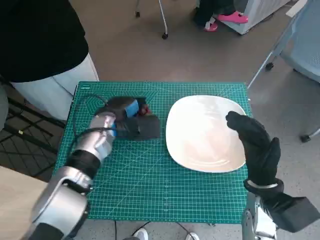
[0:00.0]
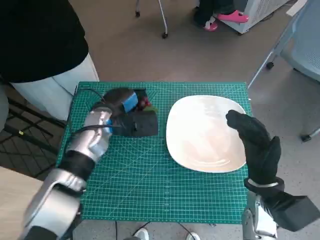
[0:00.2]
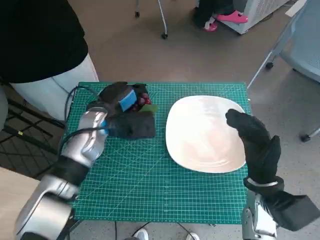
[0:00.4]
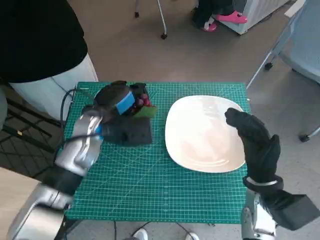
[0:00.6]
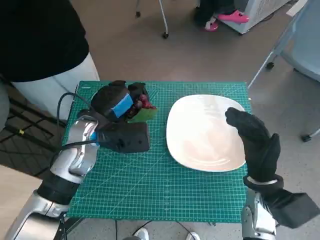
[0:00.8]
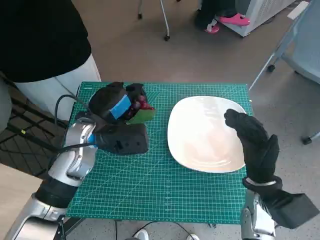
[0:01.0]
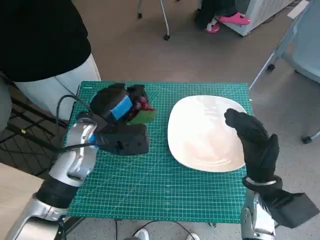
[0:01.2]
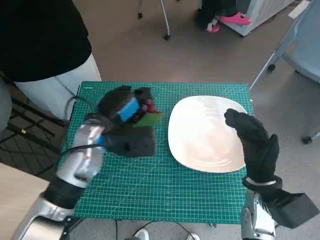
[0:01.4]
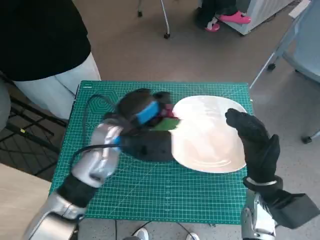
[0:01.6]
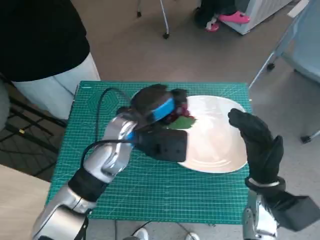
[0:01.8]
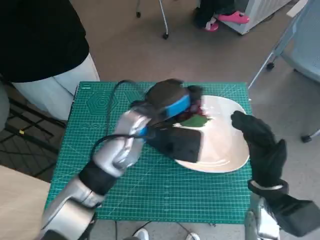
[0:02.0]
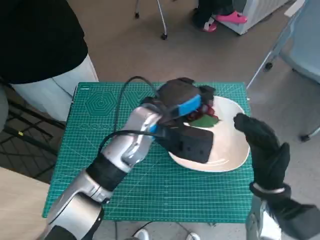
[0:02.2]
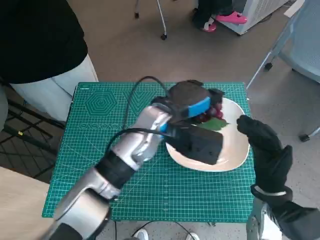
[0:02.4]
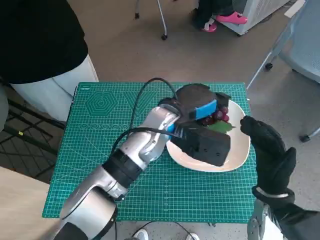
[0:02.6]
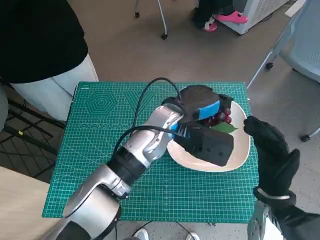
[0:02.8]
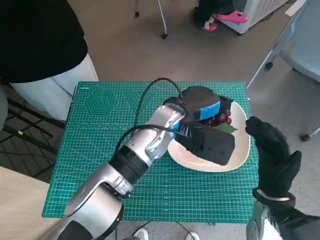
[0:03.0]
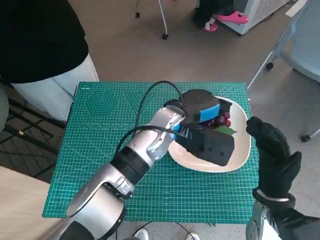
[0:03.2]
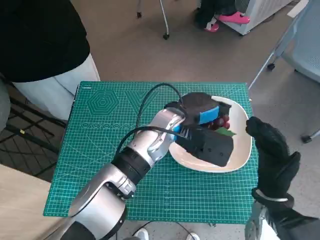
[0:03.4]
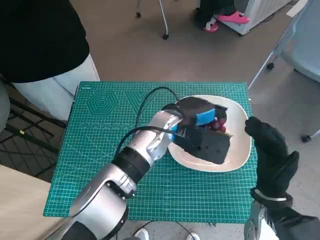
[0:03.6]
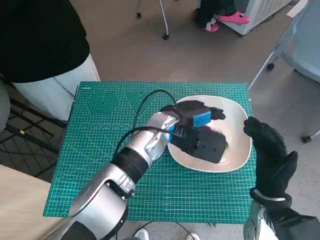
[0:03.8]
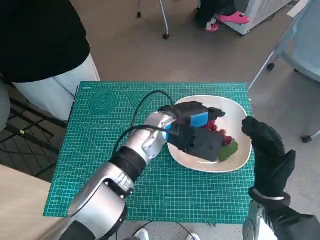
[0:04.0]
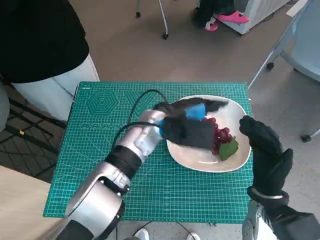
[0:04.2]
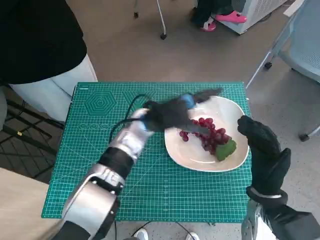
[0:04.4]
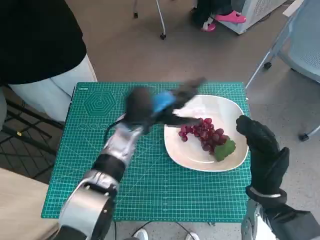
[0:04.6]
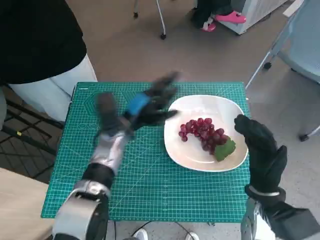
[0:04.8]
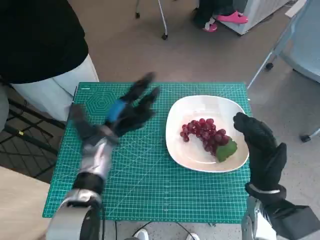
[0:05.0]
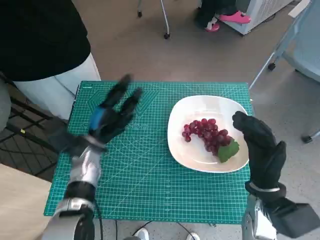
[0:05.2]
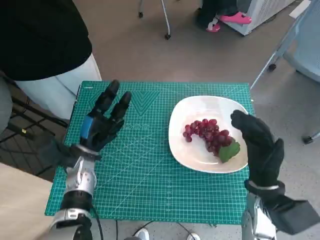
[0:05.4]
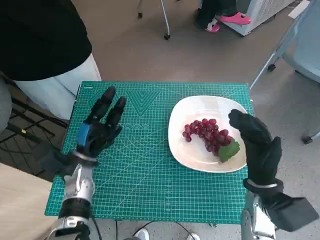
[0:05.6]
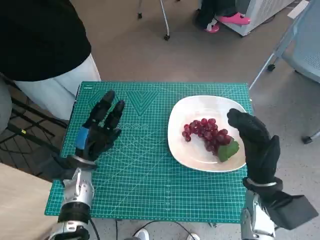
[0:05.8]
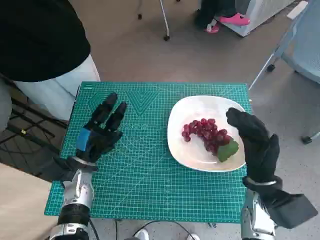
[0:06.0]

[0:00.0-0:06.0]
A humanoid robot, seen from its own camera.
Task of the whole recording: Pick up the grapes and put them on the plate.
Step, 0:00.0 to 0:04.0: Place the grapes in the plate with left hand.
0:00.0 to 0:01.6: The left hand changes place by roughly 5 cm.
0:01.6 to 0:03.0: The left hand is displaced to the right by approximately 10 cm.
0:03.0 to 0:04.4: The left hand ends up about 5 cm from where it was.
0:04.4 to 0:06.0: The left hand moves to the left, downward and backward, about 20 cm.

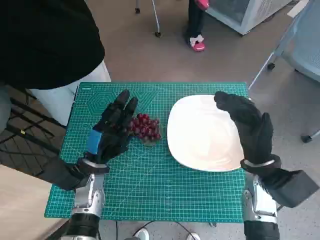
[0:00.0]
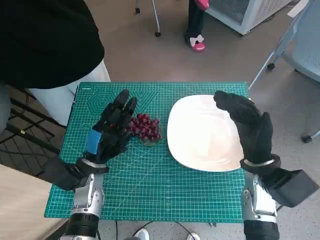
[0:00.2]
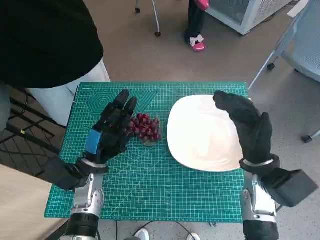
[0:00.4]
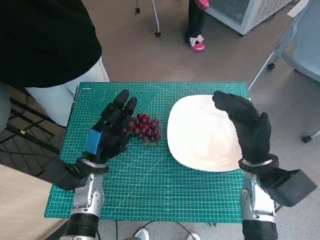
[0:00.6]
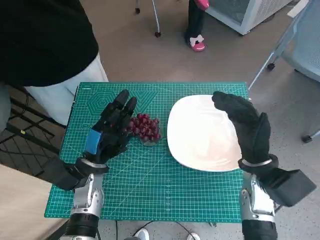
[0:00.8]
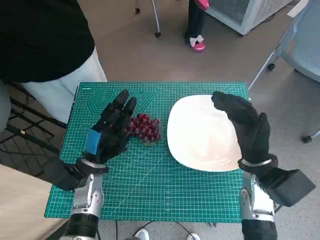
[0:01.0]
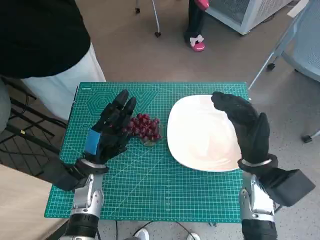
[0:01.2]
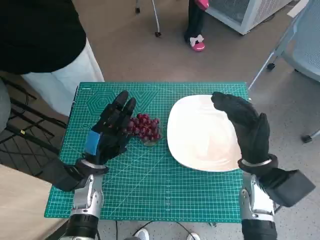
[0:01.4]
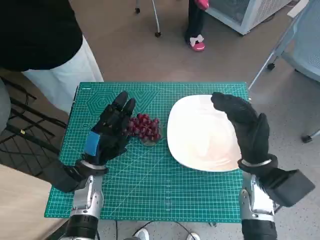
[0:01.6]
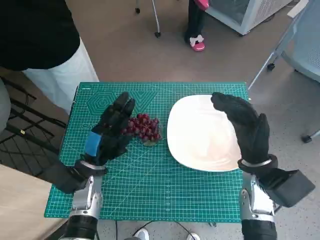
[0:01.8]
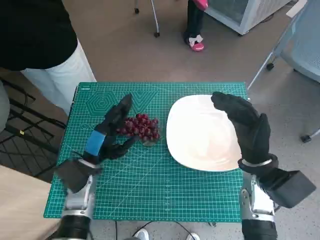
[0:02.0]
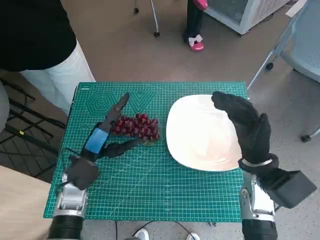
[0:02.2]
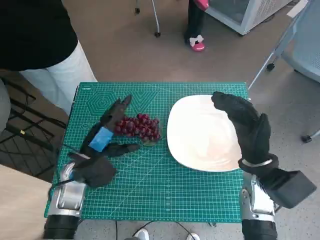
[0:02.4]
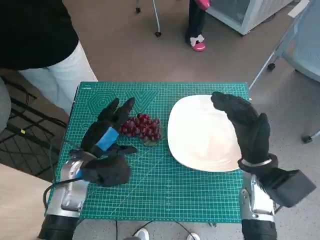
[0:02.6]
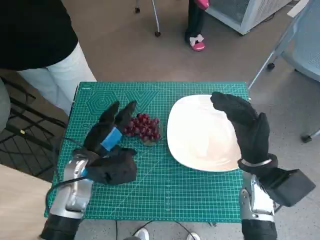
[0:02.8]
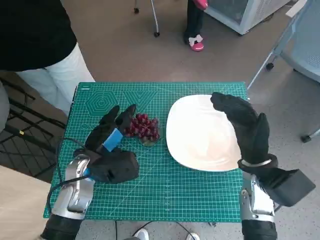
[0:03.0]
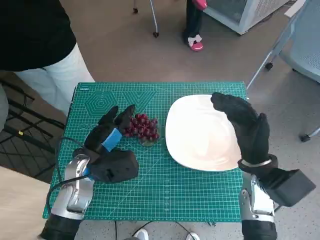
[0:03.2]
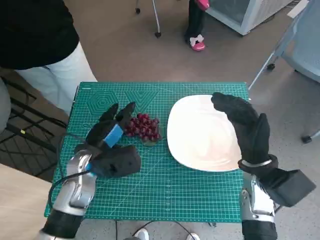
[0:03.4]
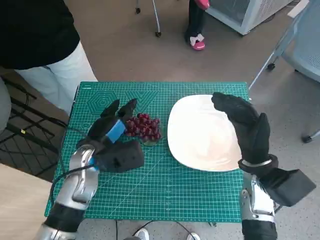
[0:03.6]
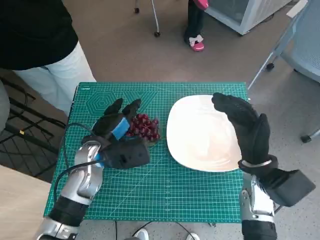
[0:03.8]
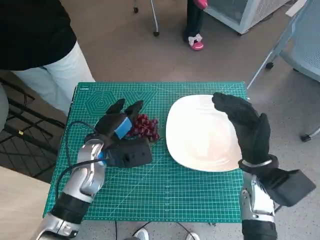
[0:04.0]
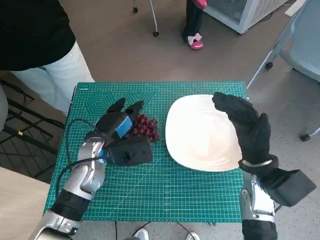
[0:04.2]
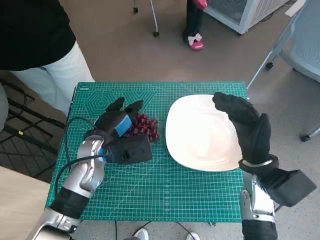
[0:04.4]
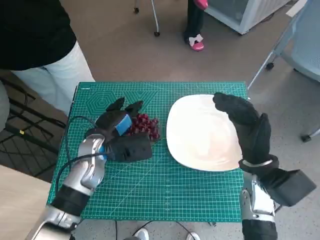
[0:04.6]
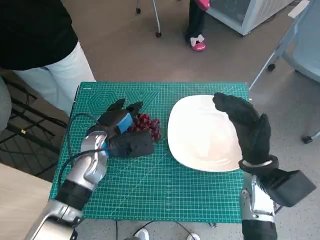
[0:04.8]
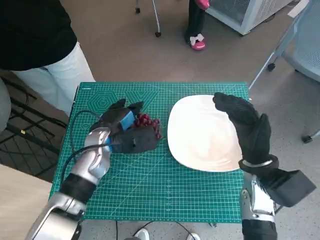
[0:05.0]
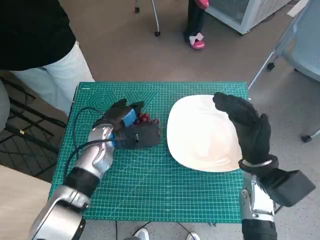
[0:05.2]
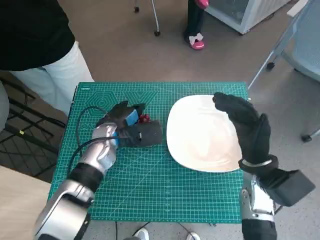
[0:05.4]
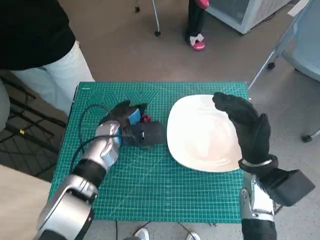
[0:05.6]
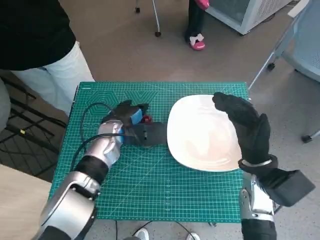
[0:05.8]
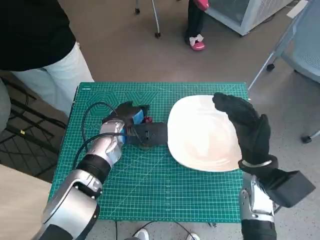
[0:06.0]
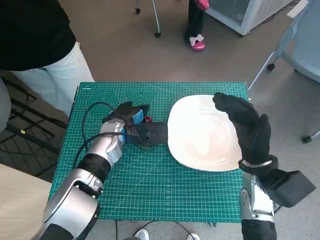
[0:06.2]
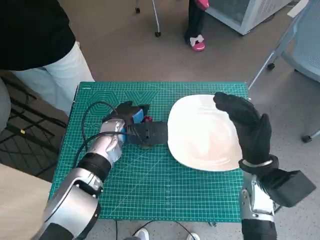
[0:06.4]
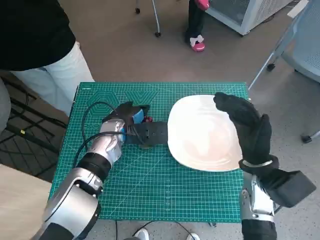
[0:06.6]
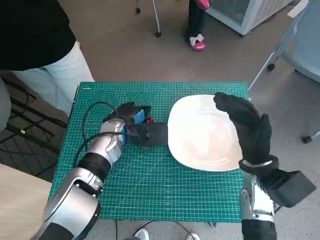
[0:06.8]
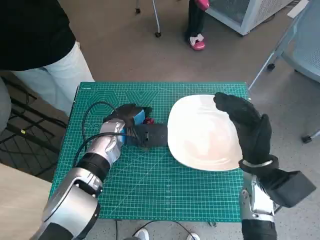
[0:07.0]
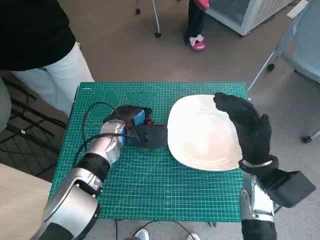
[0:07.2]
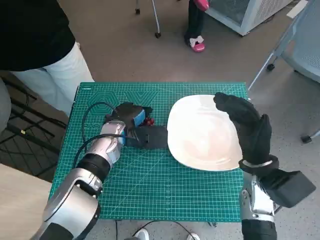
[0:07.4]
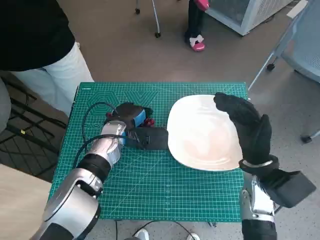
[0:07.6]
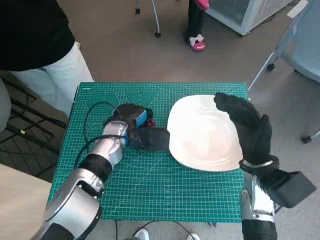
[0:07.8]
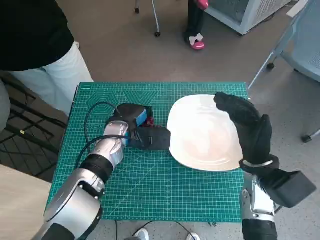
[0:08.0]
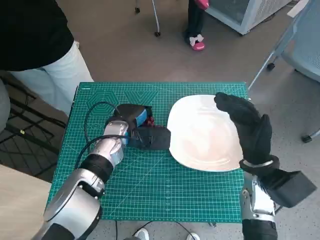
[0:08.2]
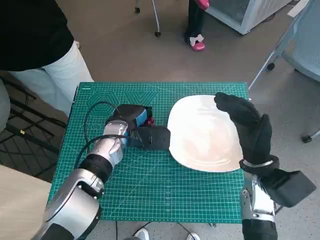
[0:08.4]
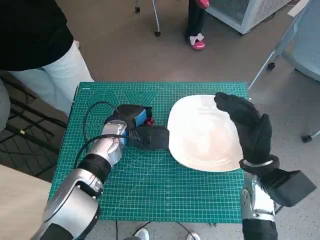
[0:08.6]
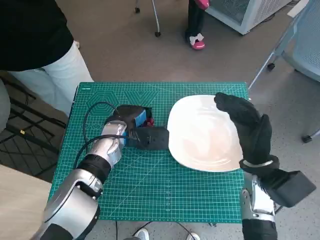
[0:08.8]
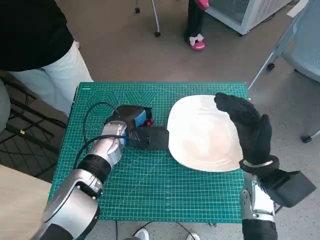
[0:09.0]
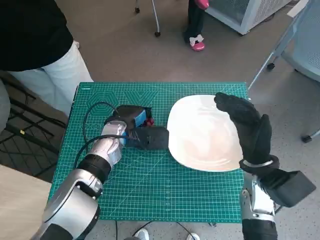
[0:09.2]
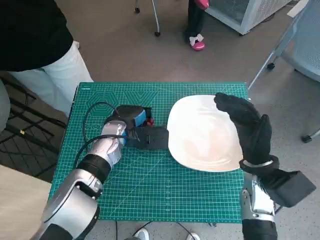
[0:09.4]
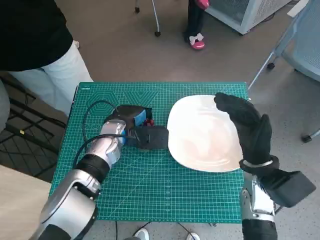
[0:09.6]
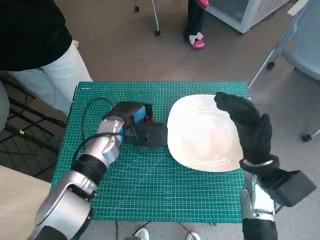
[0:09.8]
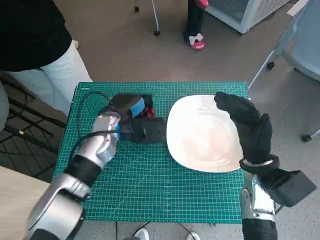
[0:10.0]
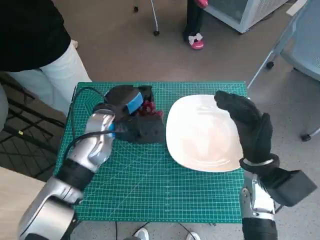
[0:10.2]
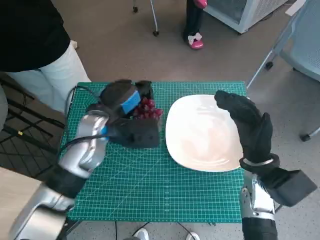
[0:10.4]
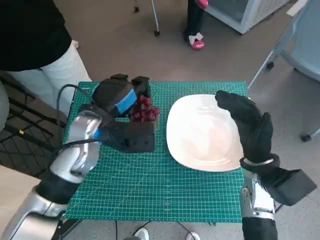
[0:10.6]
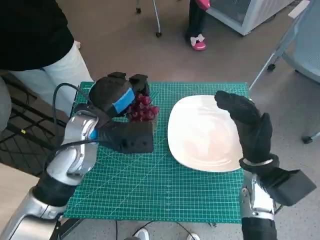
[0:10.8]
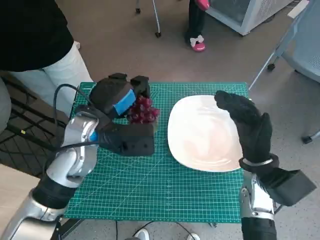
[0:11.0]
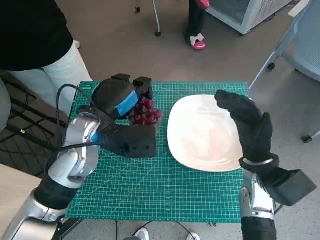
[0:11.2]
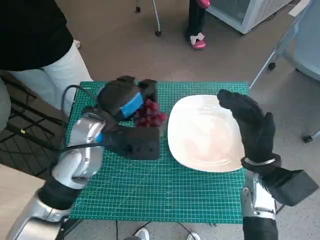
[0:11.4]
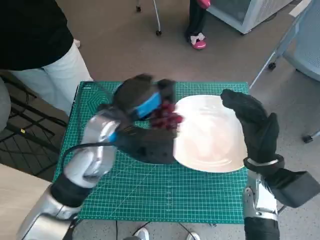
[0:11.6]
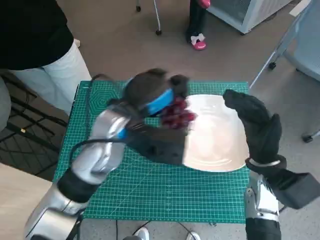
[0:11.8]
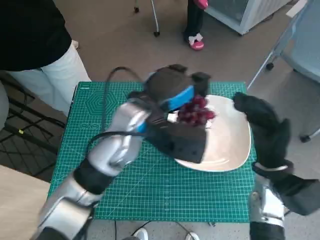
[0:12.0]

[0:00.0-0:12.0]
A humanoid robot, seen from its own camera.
Task of the whole recording: Pick up the grapes and put them on the plate.
Step, 0:00.0 to 0:07.8: Grasp the grapes with left hand.
0:03.0 to 0:04.4: There are only small adjustments of the hands.
0:04.4 to 0:06.0: The left hand heads forward, covering some 5 cm.
0:06.0 to 0:07.6: There are only small adjustments of the hands.
0:07.6 to 0:09.0: Neither hand changes place.
0:09.0 to 0:10.4: The left hand moves upward, some 5 cm.
0:10.4 to 0:12.0: The left hand moves to the right and upward, roughly 10 cm.

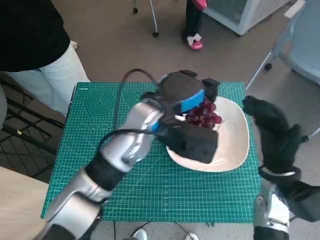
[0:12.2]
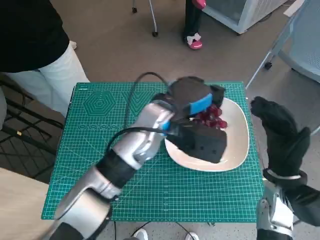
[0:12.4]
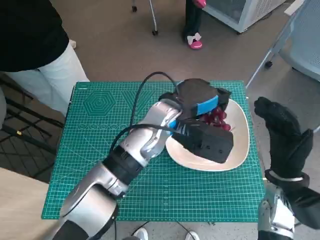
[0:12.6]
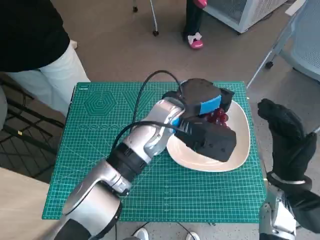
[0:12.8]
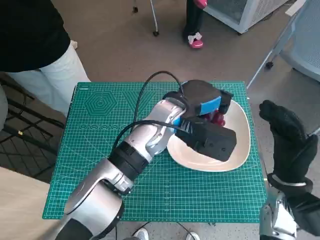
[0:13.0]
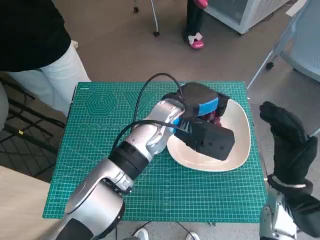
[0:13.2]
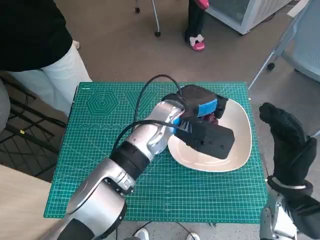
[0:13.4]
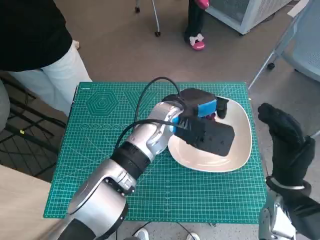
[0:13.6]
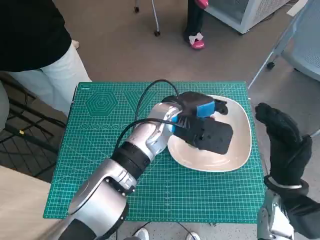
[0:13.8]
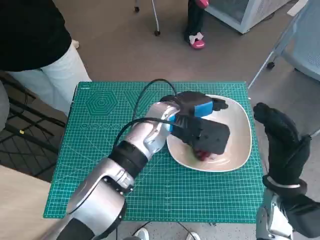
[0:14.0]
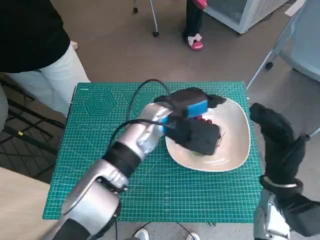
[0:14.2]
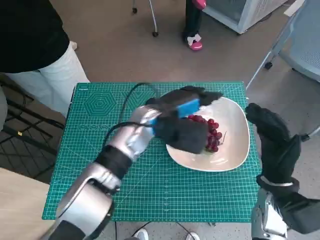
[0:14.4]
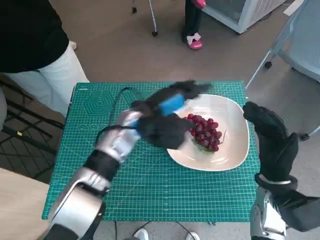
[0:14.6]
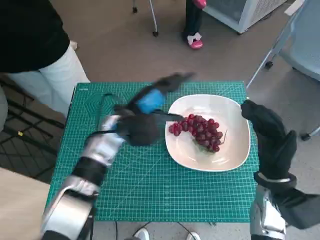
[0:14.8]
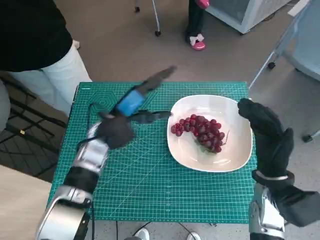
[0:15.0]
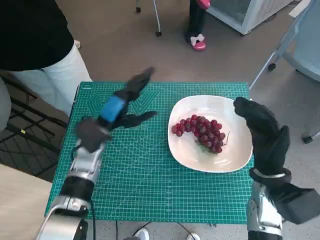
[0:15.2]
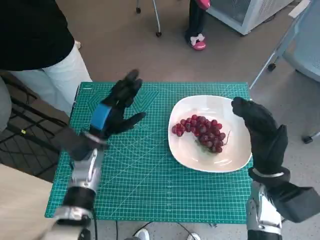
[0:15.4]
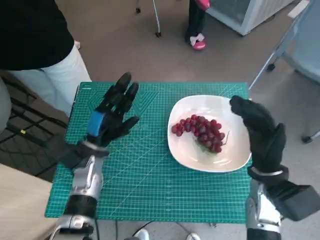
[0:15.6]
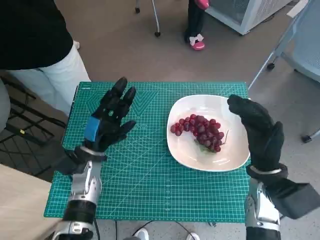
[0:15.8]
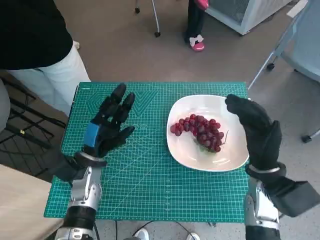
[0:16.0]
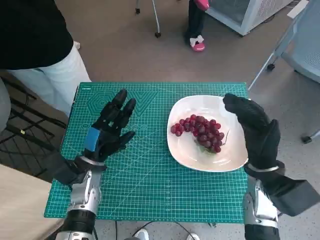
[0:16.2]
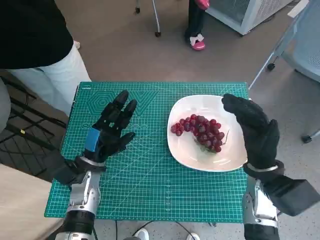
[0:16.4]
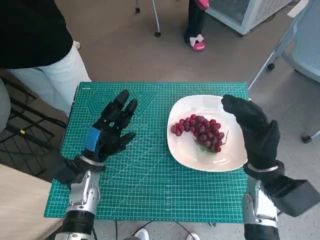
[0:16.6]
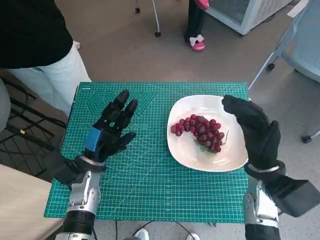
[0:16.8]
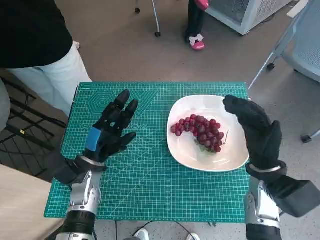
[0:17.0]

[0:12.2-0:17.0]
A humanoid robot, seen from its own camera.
Task of the whole recording: Pick up the grapes and put them on the plate.
Step, 0:12.2 to 0:14.2: Place the grapes in the plate with left hand.
0:12.2 to 0:13.8: The left hand changes place by approximately 5 cm.
0:13.8 to 0:15.4: The left hand heads to the left and downward, covering roughly 20 cm.
0:15.4 to 0:17.0: The left hand ends up approximately 5 cm from where it was.
